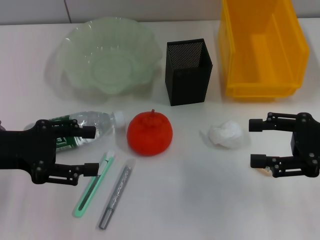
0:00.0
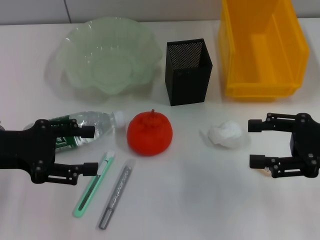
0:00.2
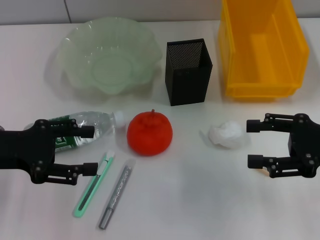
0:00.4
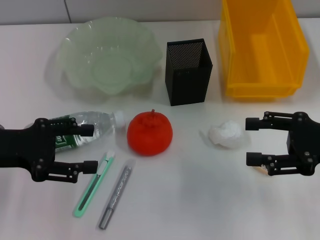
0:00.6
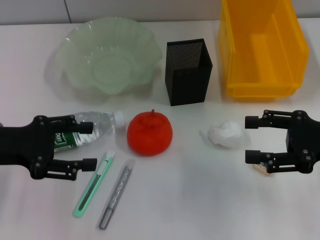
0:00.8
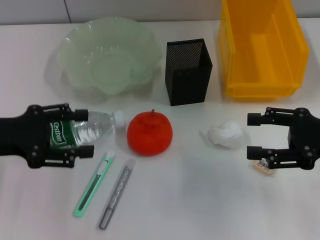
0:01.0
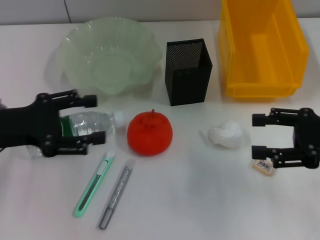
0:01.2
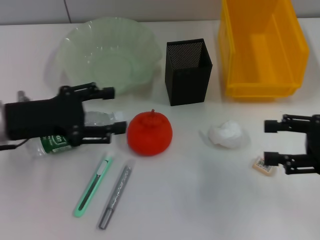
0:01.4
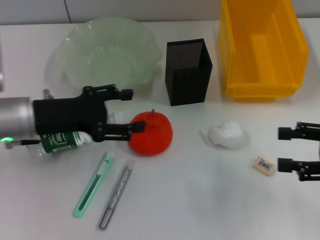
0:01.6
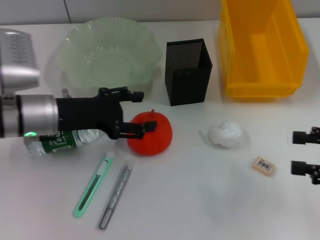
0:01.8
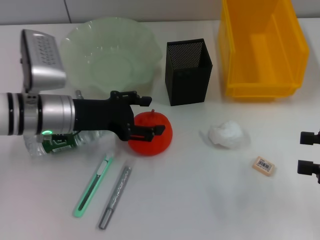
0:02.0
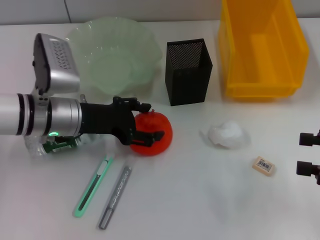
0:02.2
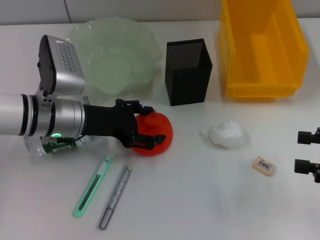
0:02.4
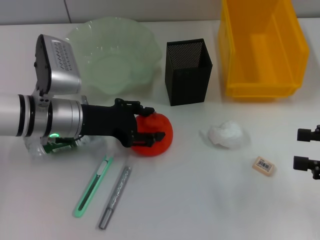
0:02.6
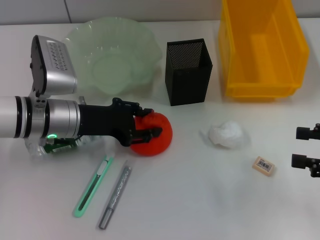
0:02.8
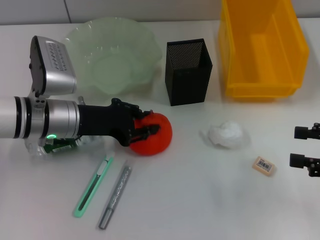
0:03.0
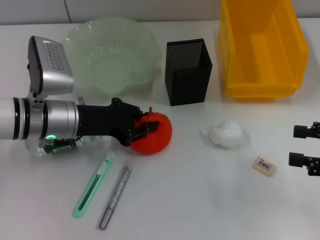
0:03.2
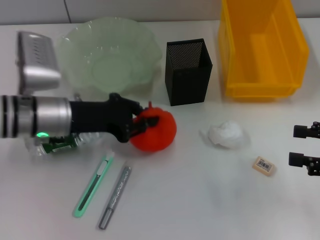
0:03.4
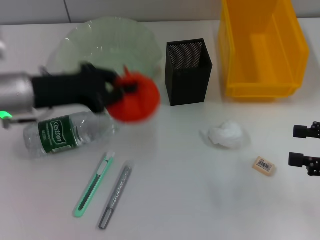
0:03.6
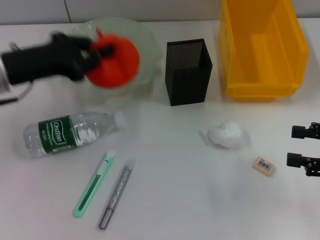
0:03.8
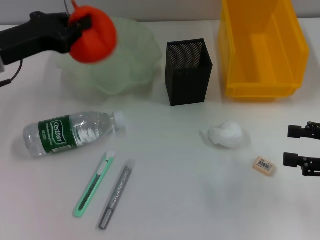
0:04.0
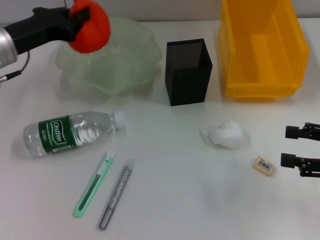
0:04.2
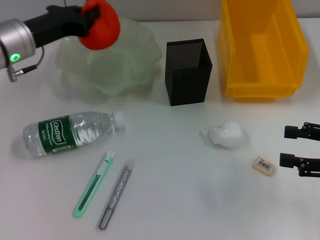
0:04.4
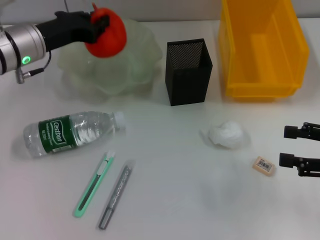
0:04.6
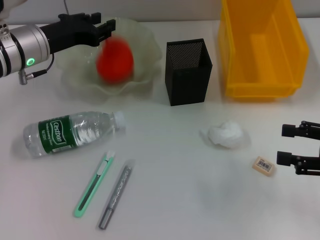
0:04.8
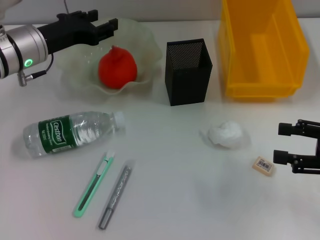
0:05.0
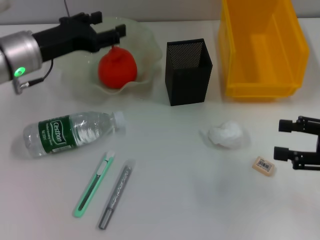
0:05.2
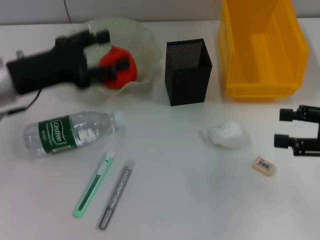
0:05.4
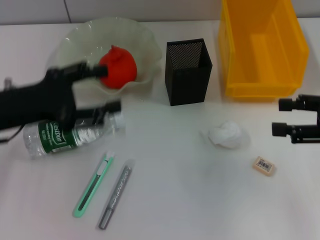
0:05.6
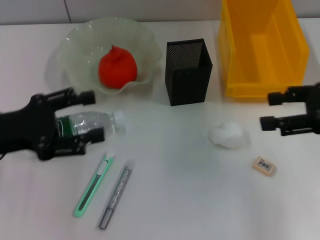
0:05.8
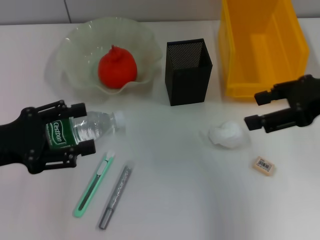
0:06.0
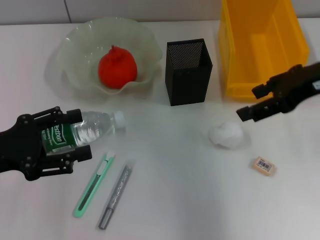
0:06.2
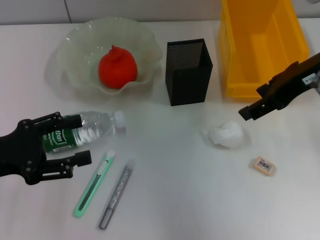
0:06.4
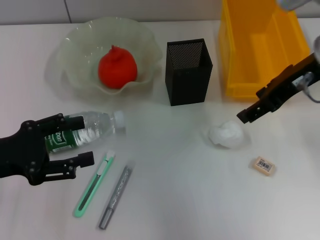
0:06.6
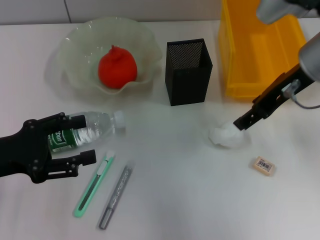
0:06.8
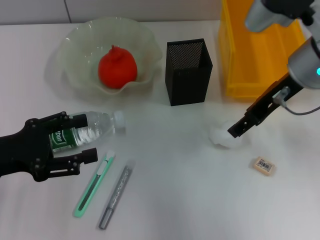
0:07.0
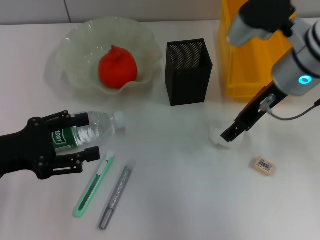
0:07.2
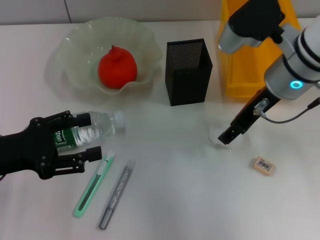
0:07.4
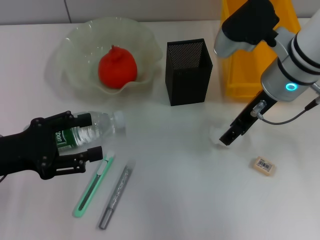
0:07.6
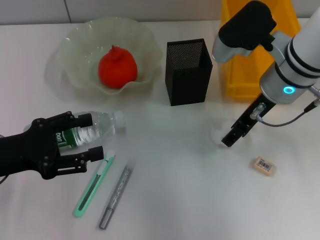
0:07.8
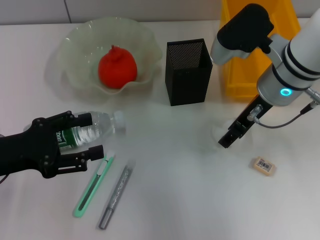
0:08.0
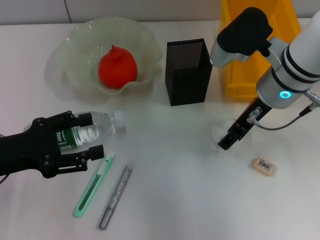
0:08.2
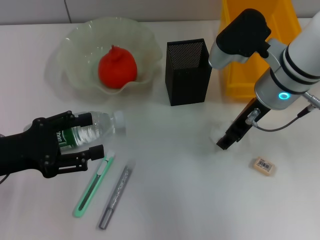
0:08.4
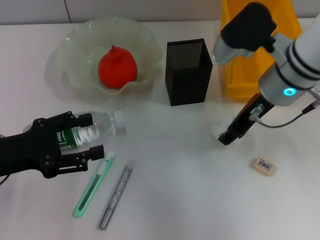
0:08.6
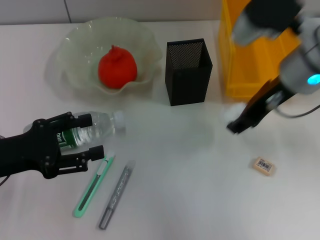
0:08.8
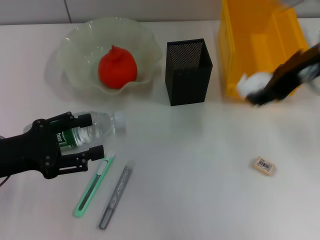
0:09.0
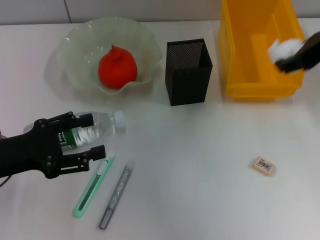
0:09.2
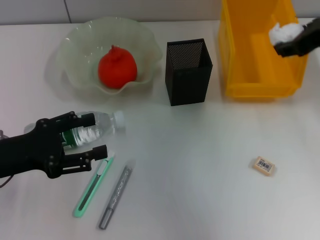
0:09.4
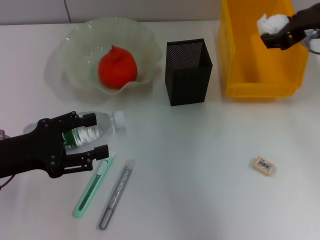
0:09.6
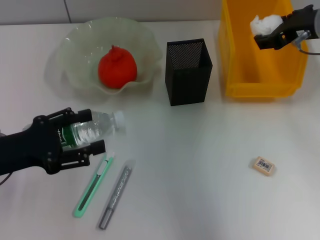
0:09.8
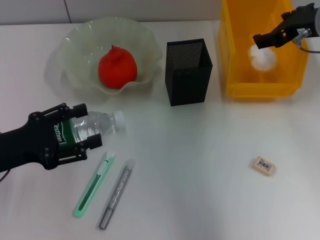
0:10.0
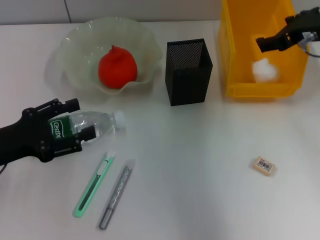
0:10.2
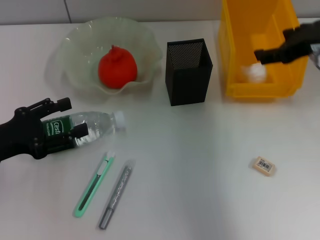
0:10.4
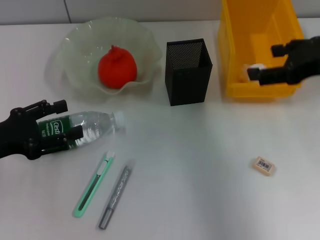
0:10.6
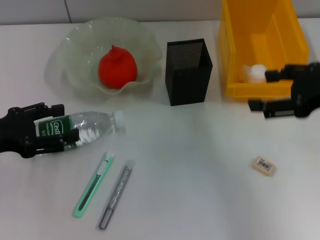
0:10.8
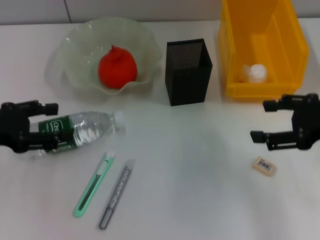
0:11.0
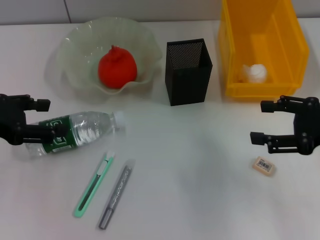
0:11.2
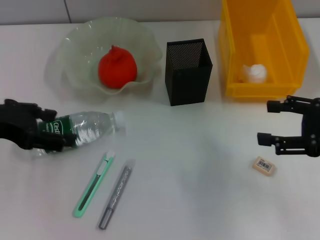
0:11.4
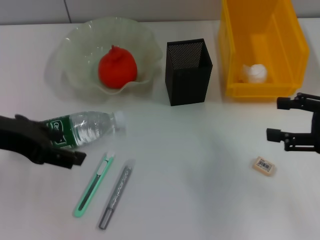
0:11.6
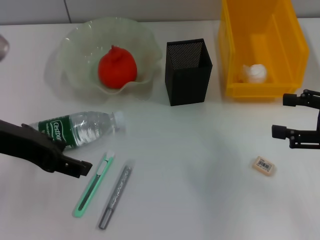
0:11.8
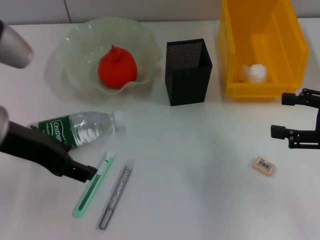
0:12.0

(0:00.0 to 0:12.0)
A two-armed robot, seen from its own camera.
Step, 0:00.0 - 0:02.8: Grab the orange with the left hand.
Step, 0:03.0 - 0:04.8: Place the orange into the fruit bowl with the left hand.
Step, 0:05.2 - 0:08.2: Grab the paper ball with the right hand.
Step, 0:08.4 - 0:10.0: Place the paper ball into the trash can with the right hand.
0:00.0 - 0:01.6: The left gripper heads to the right, covering approximately 5 cm.
0:01.6 - 0:03.0: The left gripper ends up about 5 cm from where it was, and closes.
0:03.0 - 0:04.4: The left gripper heads forward and upward, covering some 10 cm, and closes.
0:04.4 - 0:06.0: The right gripper moves upward, to the left and forward, approximately 15 cm, while the left gripper shifts roughly 15 cm backward, and opens up.
0:06.0 - 0:07.6: The right gripper heads to the left, forward and downward, covering some 15 cm.
0:07.6 - 0:09.0: The right gripper travels upward by some 10 cm.
0:09.0 - 0:10.4: The right gripper changes place by roughly 5 cm, and opens its fingers.
0:10.4 - 0:12.0: The left gripper shifts approximately 15 cm upward and to the right, while the right gripper travels backward, to the right and downward by about 15 cm.

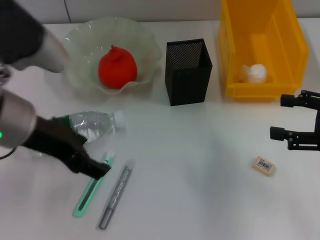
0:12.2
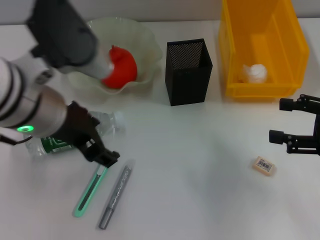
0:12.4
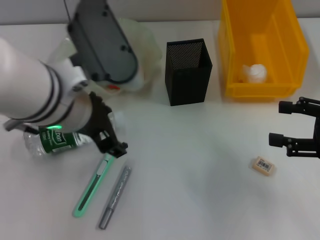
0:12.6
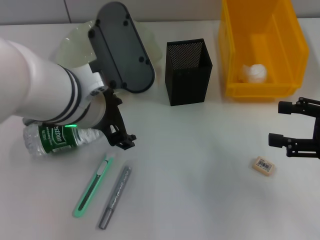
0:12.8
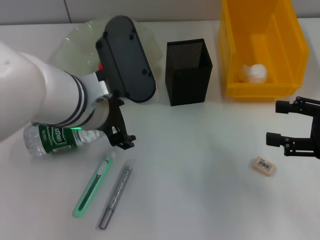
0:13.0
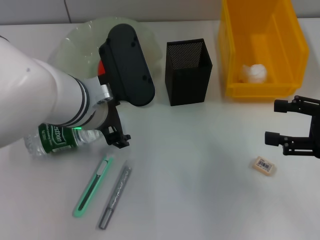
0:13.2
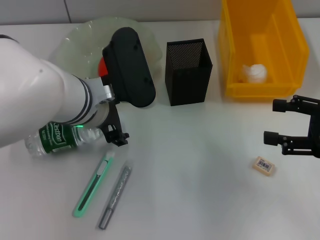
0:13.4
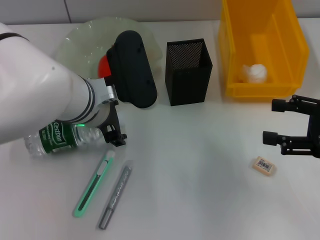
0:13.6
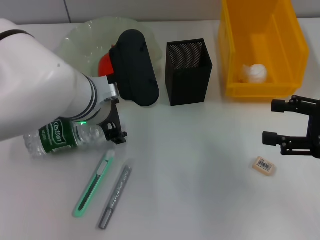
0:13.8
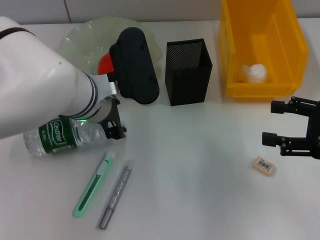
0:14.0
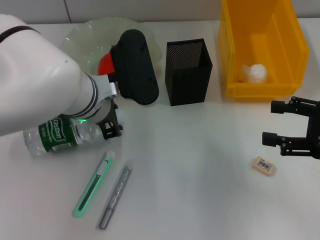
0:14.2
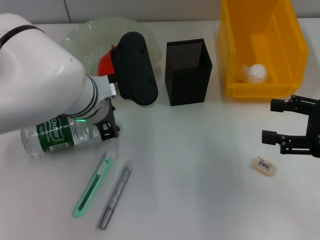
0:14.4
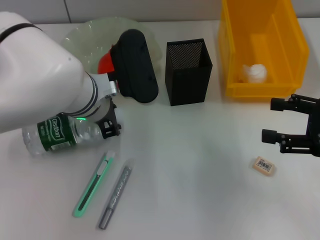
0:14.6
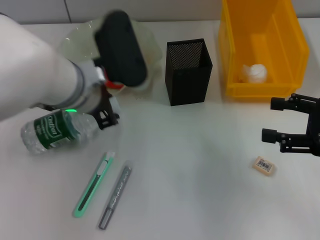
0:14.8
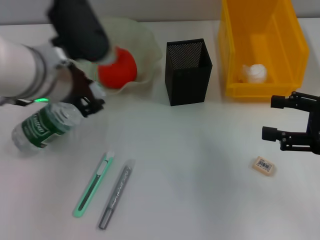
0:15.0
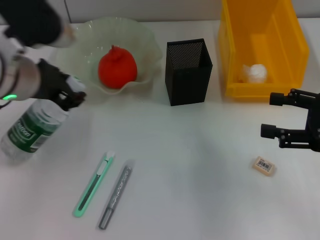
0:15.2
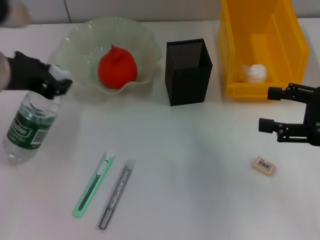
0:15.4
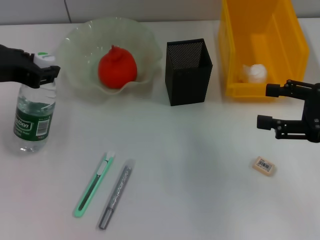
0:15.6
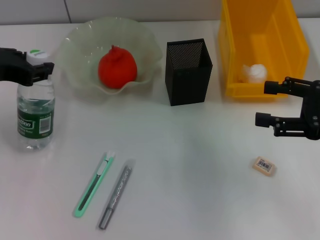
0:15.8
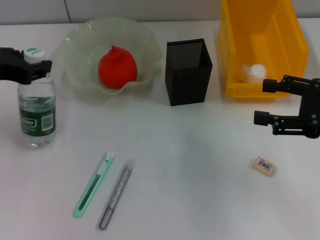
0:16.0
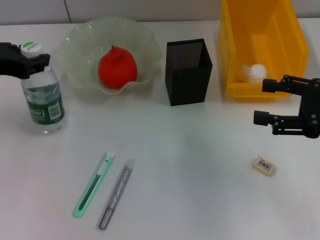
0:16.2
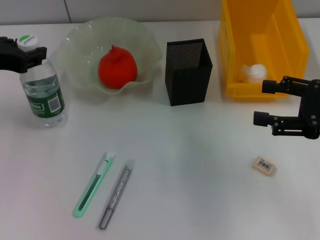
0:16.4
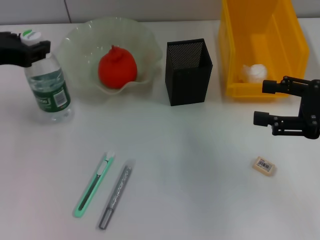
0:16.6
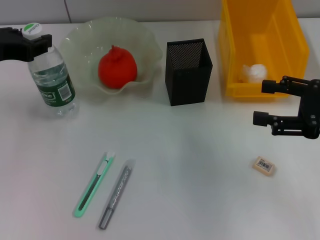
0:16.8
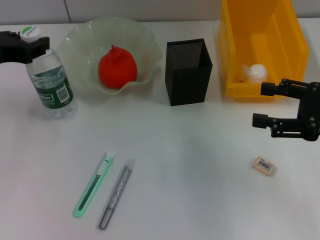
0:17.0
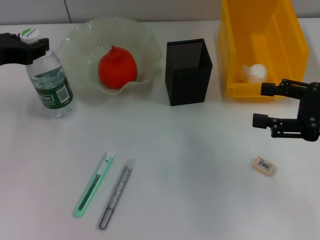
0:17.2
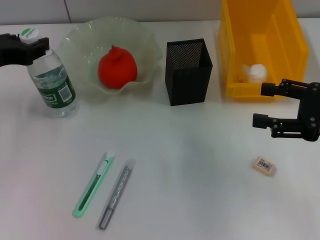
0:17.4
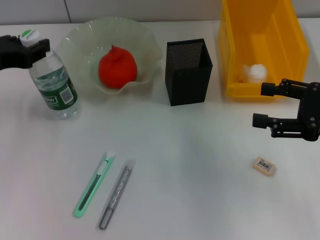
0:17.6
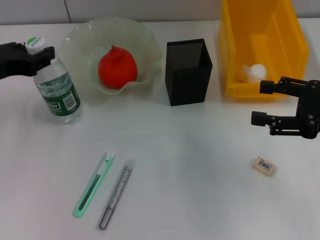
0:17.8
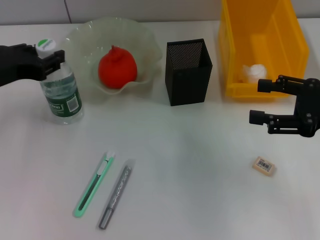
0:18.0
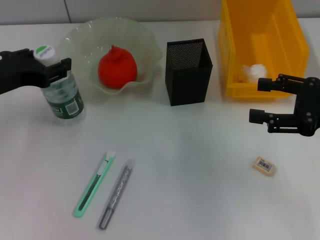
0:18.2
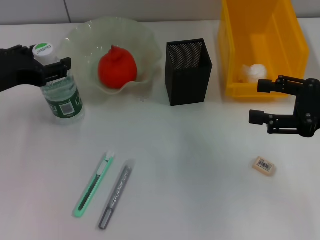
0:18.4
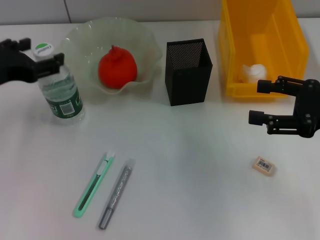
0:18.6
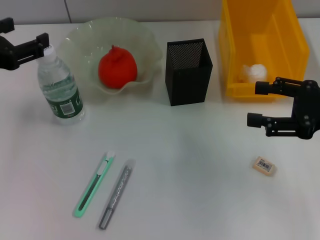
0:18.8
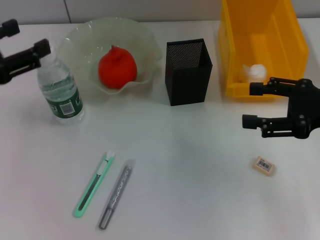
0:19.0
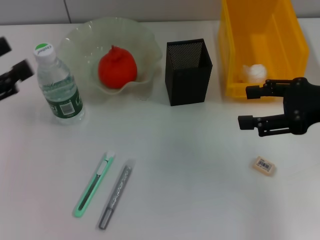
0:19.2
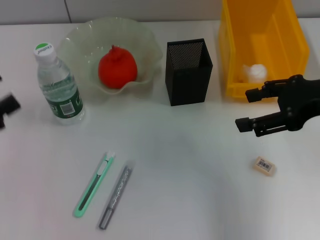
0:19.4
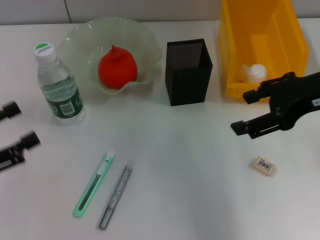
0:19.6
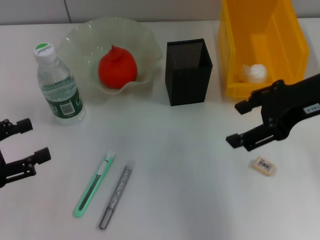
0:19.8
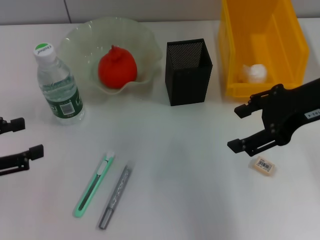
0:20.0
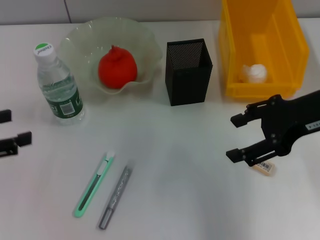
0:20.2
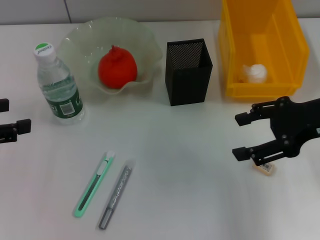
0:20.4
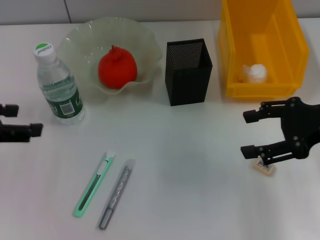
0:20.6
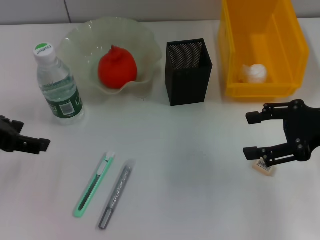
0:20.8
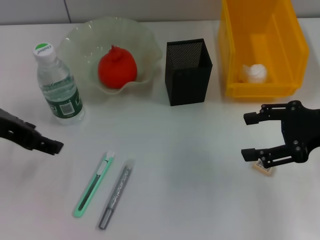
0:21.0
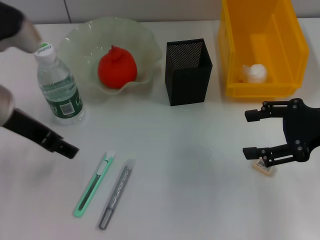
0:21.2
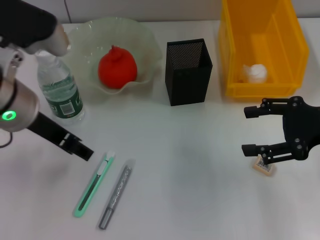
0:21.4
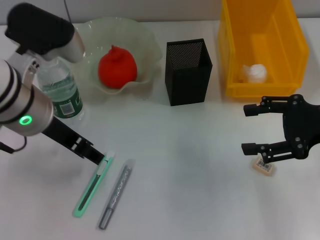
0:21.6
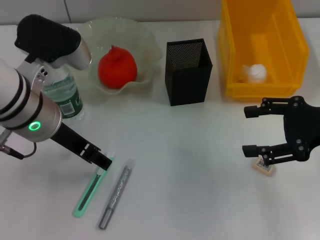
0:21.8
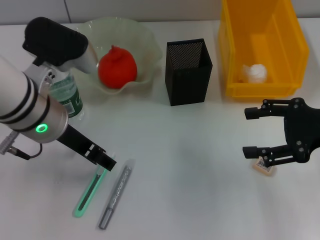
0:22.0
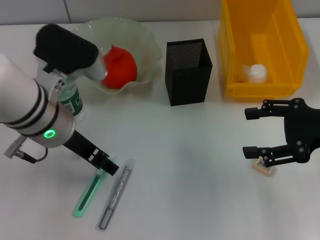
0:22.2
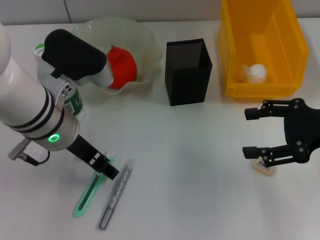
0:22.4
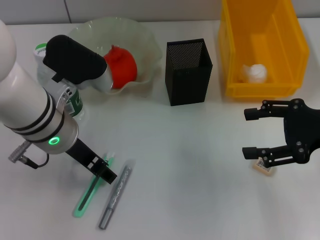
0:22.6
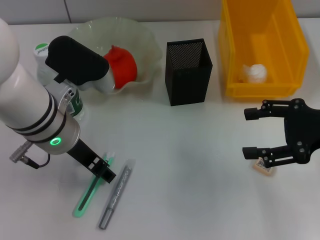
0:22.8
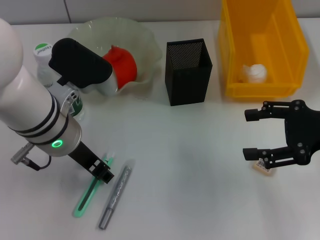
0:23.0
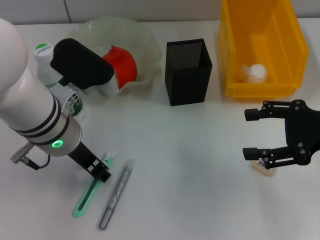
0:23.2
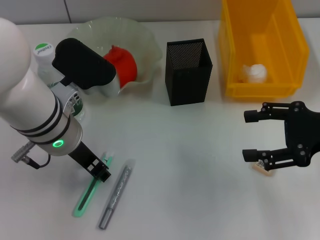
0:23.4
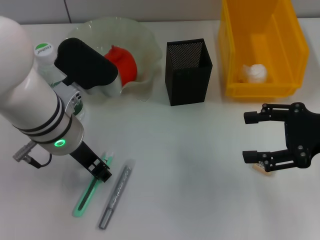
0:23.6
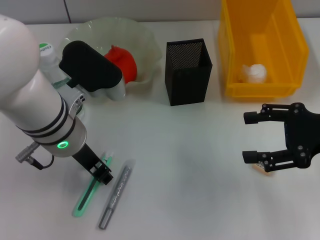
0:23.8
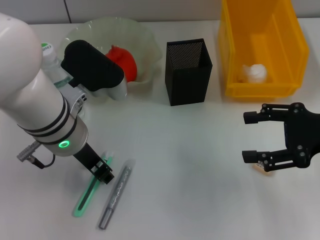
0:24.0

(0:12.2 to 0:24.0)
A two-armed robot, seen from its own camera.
Step, 0:12.2 - 0:14.4: Grab the water bottle with the left hand.
Step, 0:14.6 - 0:18.4: Place the water bottle on the table with the left hand.
0:12.2 - 0:13.6: The left gripper heads downward, to the right and forward, covering approximately 10 cm.
0:13.6 - 0:15.2: The left gripper shifts roughly 10 cm to the left, and closes up.
0:15.2 - 0:16.6: The left gripper is displaced to the left by some 10 cm.
0:16.6 - 0:18.2: The grippers make only small movements.
0:18.2 - 0:19.6: The right gripper is displaced upward and to the left by approximately 10 cm, while the left gripper heads backward and to the left, covering some 15 cm, and opens up.
0:19.6 - 0:21.0: The right gripper travels downward by about 5 cm. Meanwhile the left gripper is displaced to the right, forward and upward by some 15 cm.
0:21.0 - 0:22.6: The left gripper goes approximately 10 cm to the right and downward.
0:22.6 - 0:24.0: The left gripper closes.
